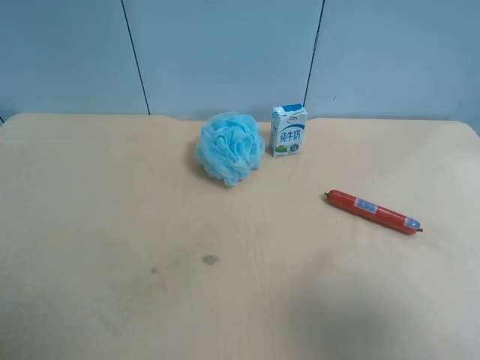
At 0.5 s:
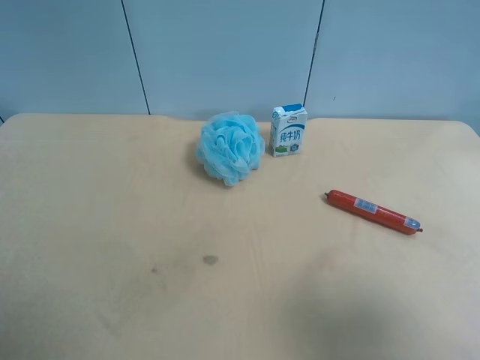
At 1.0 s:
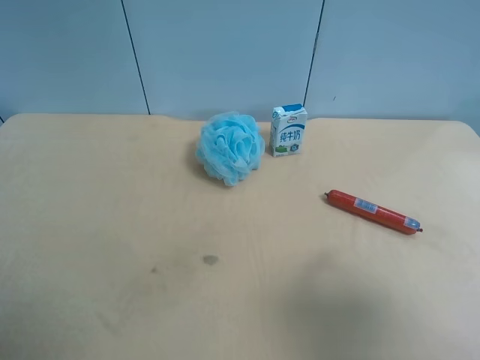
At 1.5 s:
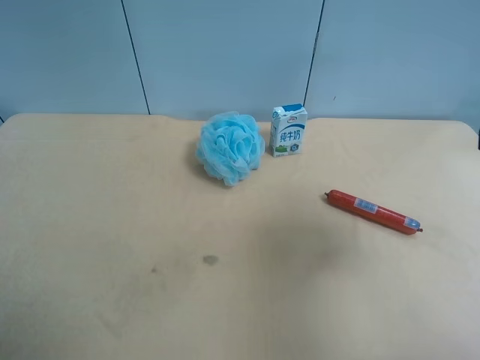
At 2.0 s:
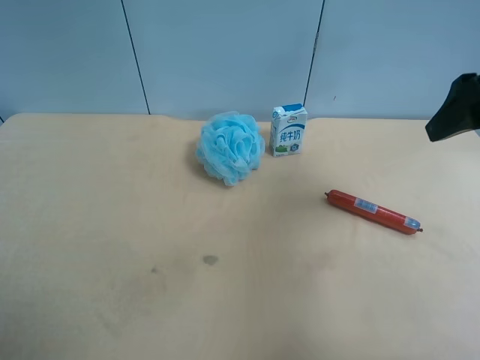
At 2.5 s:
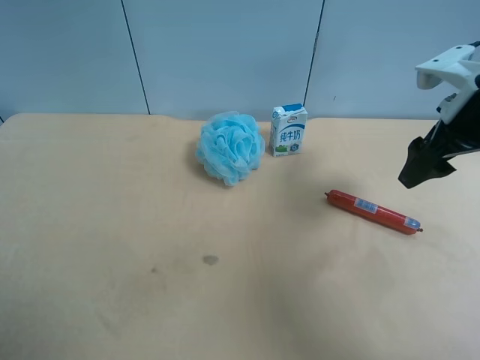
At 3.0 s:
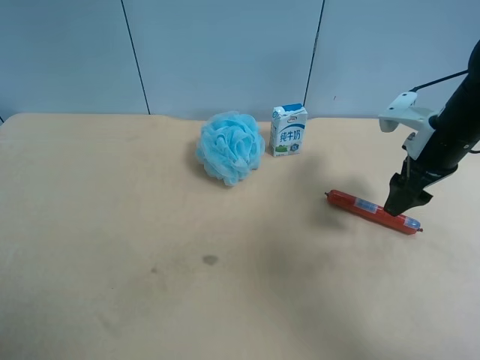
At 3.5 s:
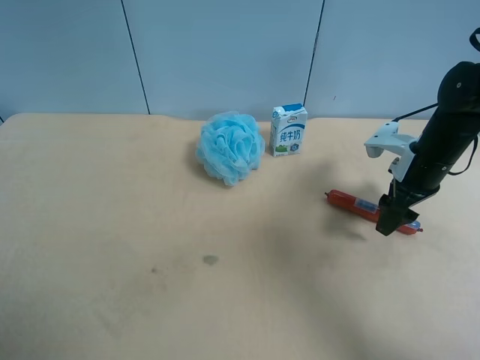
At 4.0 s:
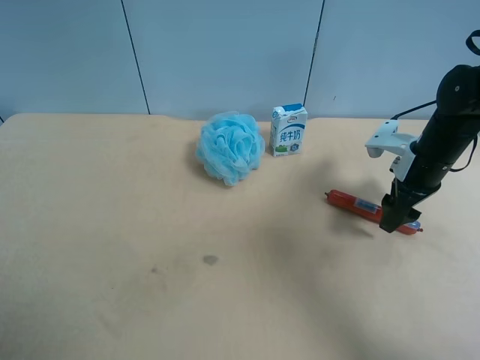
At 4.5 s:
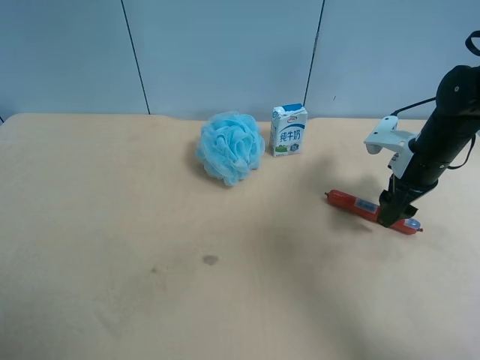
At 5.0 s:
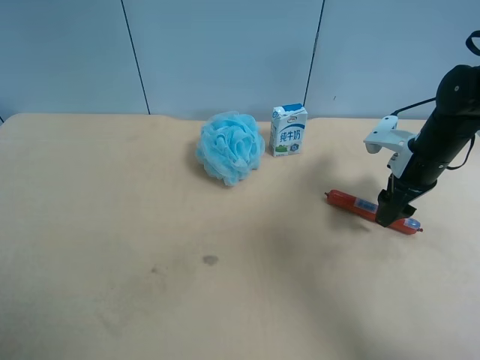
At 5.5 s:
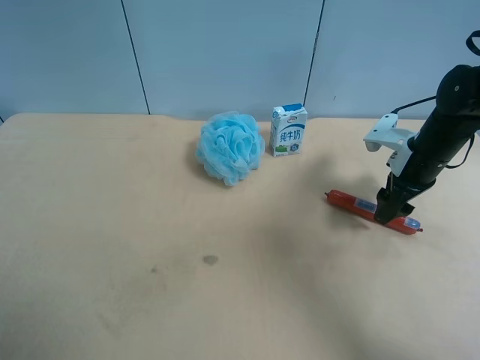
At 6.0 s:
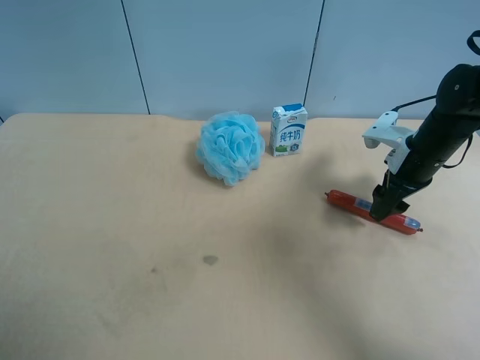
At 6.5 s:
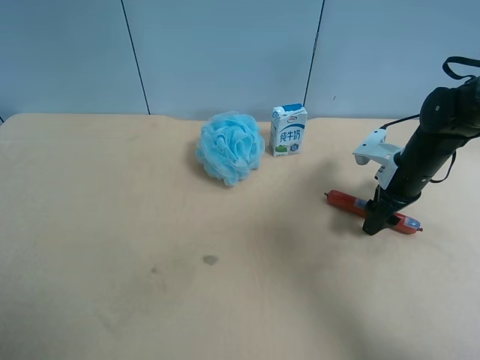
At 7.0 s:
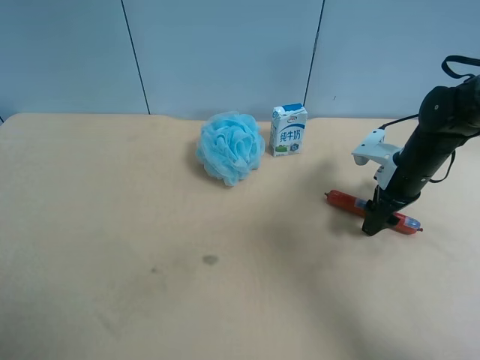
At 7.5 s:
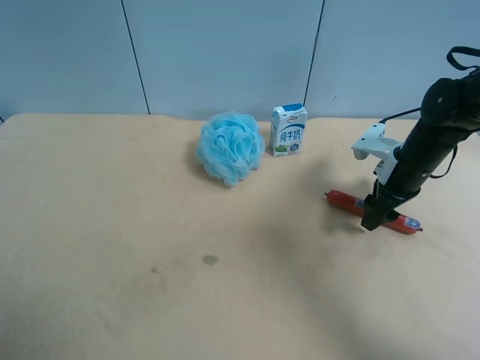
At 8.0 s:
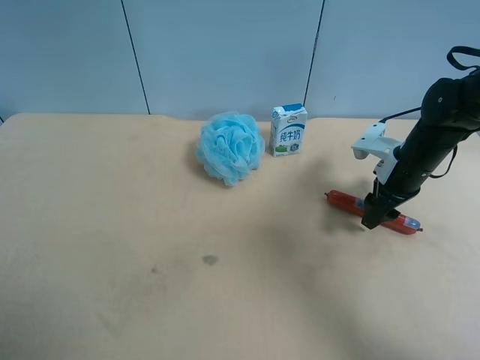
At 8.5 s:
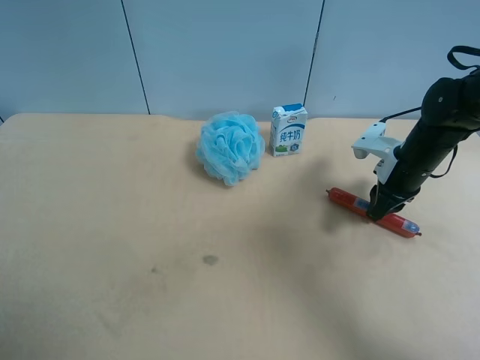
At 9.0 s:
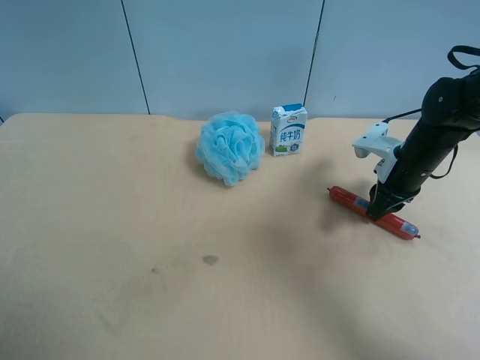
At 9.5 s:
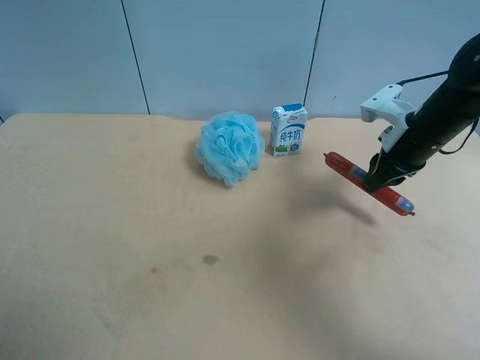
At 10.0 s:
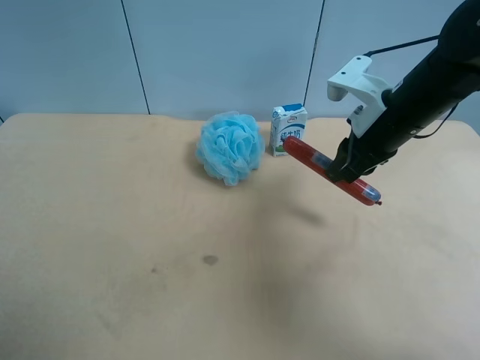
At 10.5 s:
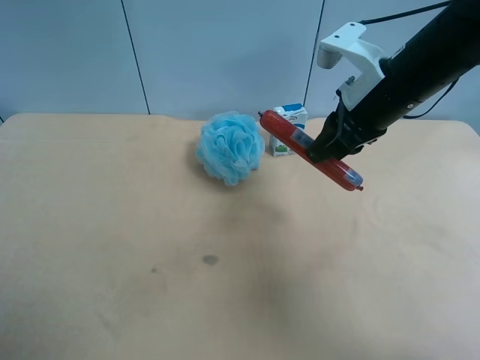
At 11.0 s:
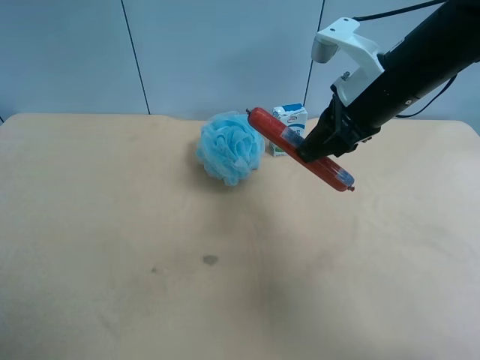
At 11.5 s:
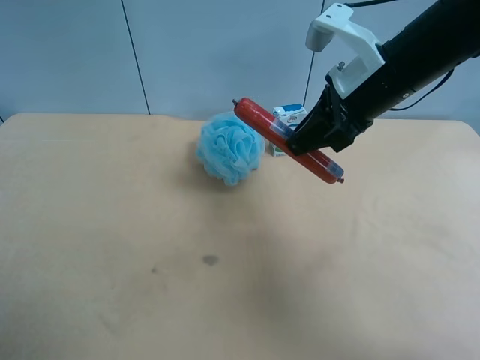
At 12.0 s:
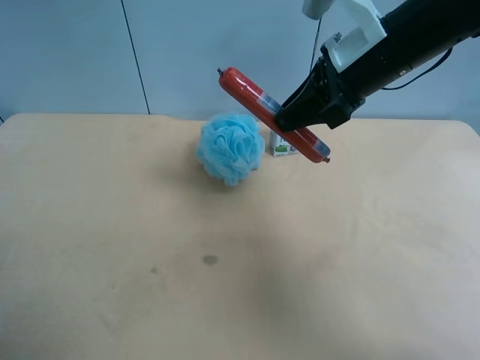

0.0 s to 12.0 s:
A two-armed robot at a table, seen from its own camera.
Task of the whole recording: use the right gripper to pick up the item and transfer it from the right gripper to the left gripper.
0.0 to 2.0 s: The right gripper travels forward by approximately 25 cm.
2.0 to 4.0 s: The right gripper moves downward and forward, some 20 cm.
4.0 to 8.0 s: There are only small adjustments of the grippers.
8.0 to 10.0 s: The right gripper is displaced upward and to the left by about 15 cm, and closes.
10.0 to 12.0 s: The left gripper heads forward, covering about 5 cm. The right gripper travels upward by about 5 cm.

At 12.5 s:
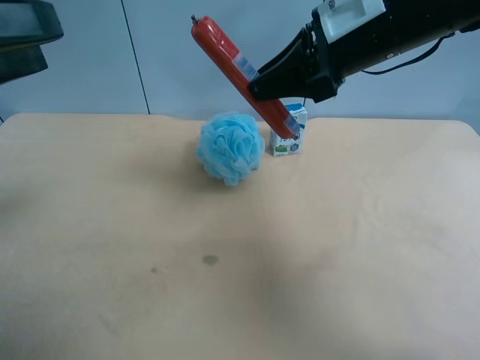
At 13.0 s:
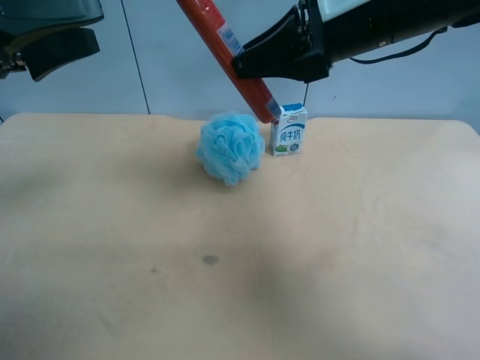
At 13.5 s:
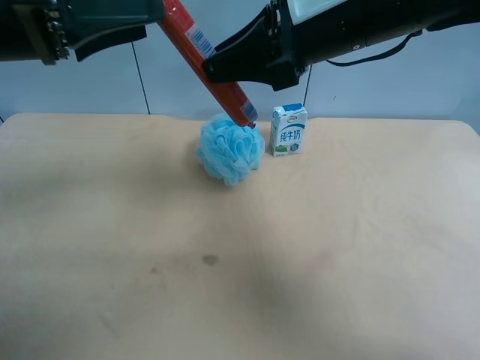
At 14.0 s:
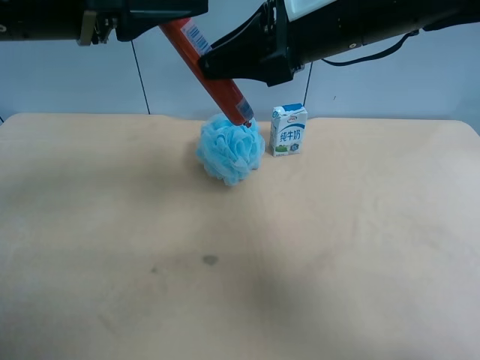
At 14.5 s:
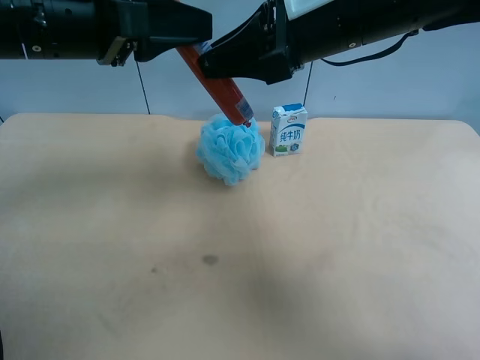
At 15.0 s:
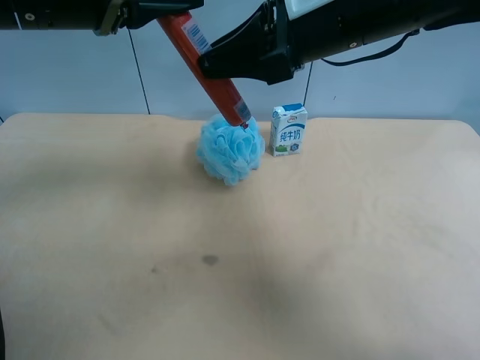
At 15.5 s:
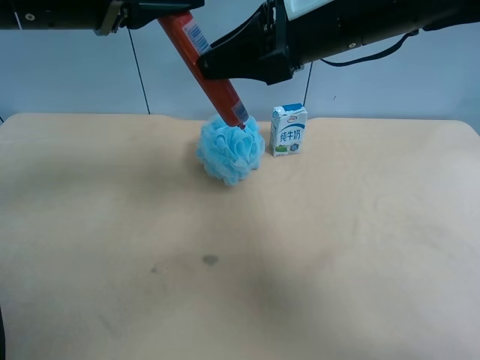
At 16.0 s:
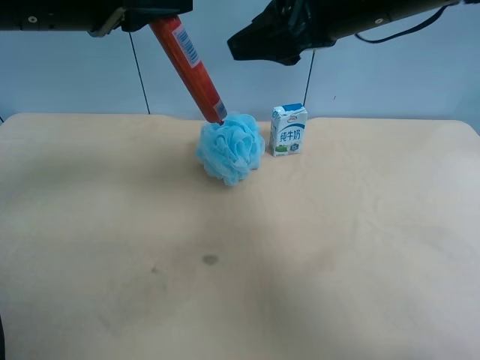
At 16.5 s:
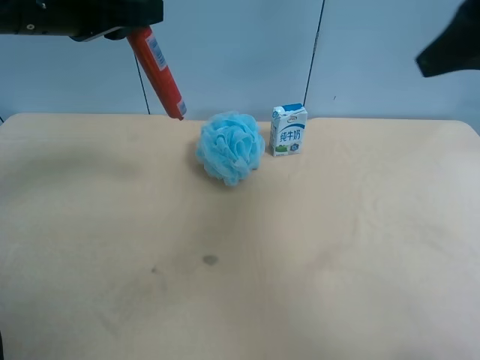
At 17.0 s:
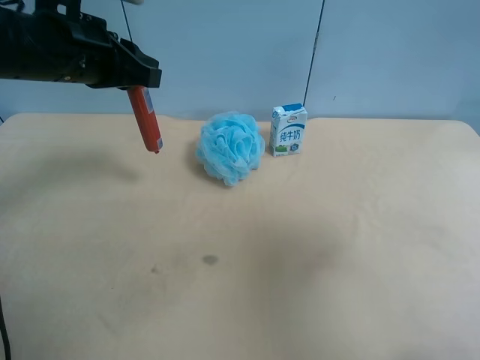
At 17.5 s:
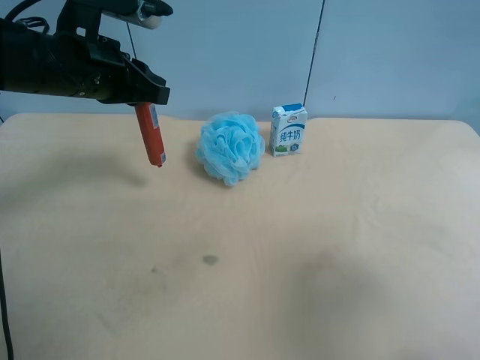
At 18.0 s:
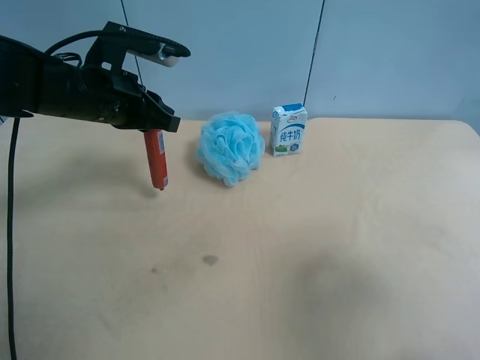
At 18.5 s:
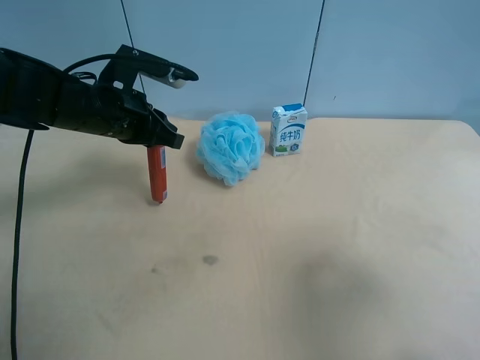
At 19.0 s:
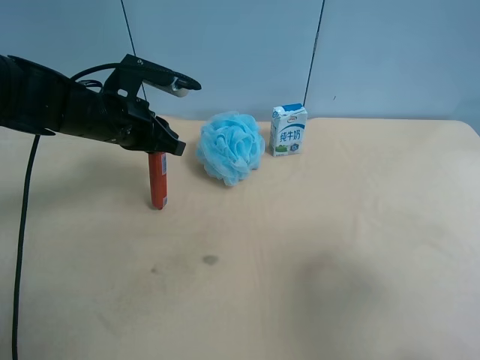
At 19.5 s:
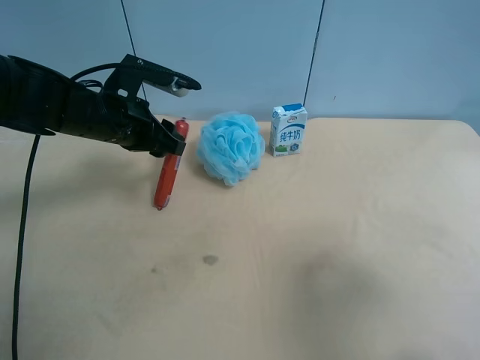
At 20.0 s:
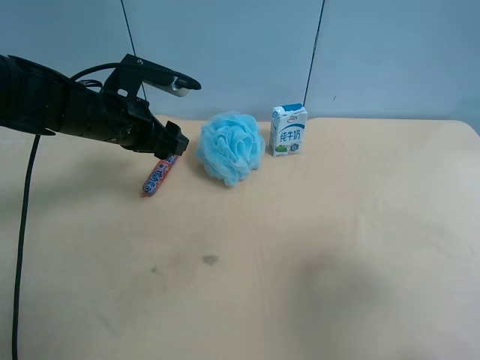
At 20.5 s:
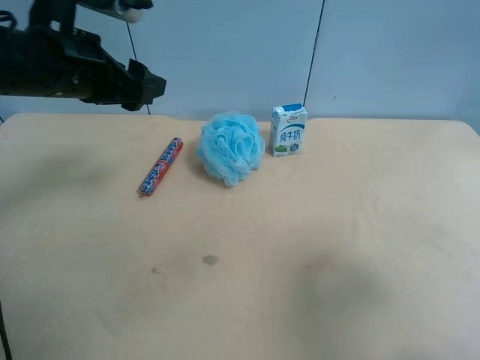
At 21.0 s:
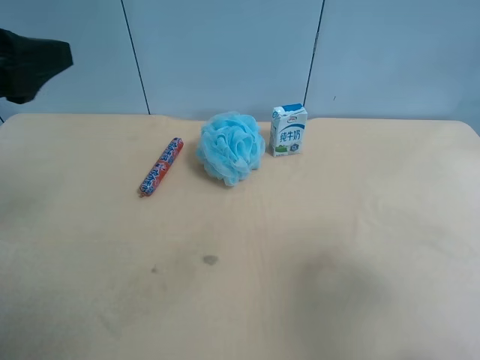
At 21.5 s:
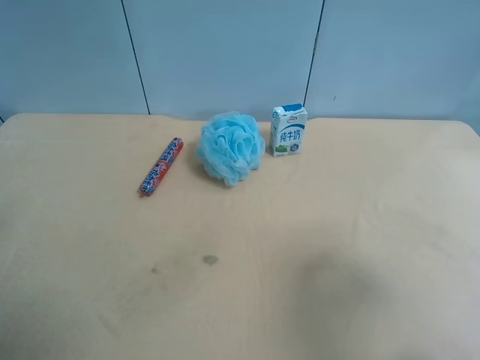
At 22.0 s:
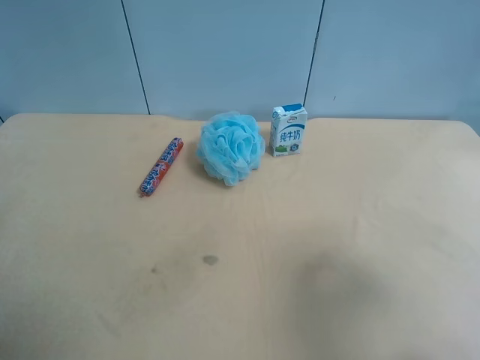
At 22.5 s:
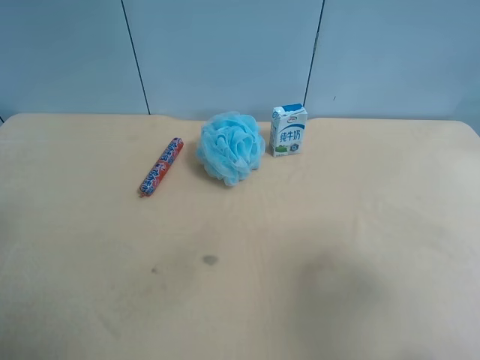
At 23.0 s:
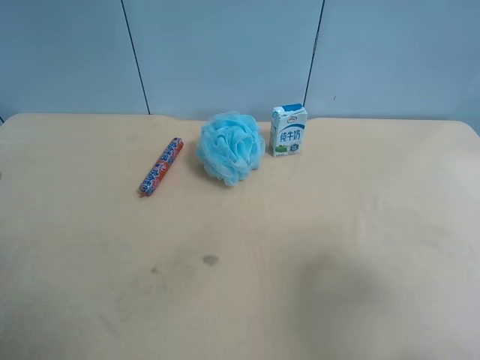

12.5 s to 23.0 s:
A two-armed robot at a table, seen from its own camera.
Task of the whole recording: use the right gripper to pick up the item and transfer it from the right gripper to the left gripper.
12.5 to 14.5 s: The left gripper moves to the right and forward, about 10 cm.
14.5 to 16.5 s: The right gripper moves to the right, backward and upward, about 20 cm, and opens. Meanwhile the left gripper closes.
16.5 to 19.0 s: The right gripper is displaced backward, downward and to the right by some 15 cm, while the left gripper heads downward, covering about 15 cm.
19.0 to 21.0 s: The left gripper shifts about 20 cm backward, upward and to the left, and opens up.
21.0 to 23.0 s: The left gripper travels backward by approximately 10 cm.

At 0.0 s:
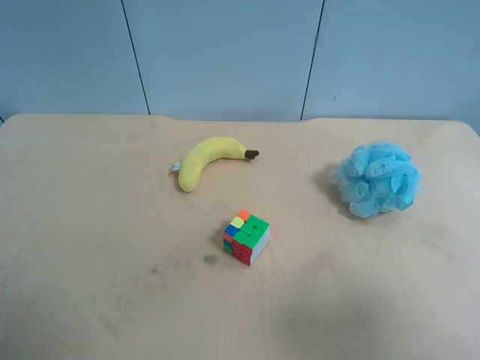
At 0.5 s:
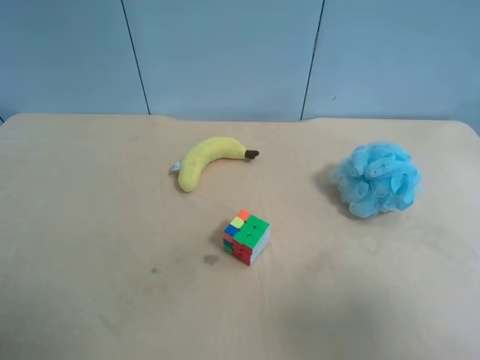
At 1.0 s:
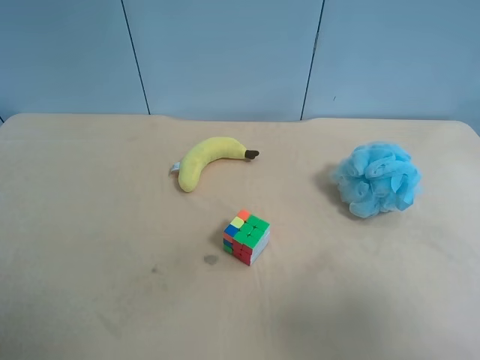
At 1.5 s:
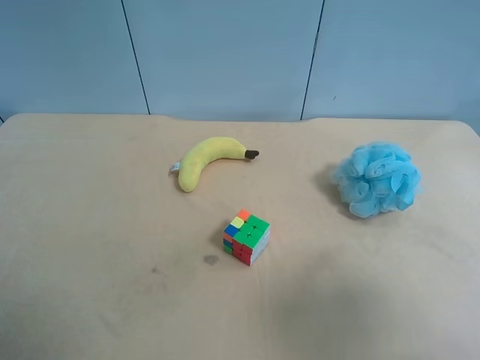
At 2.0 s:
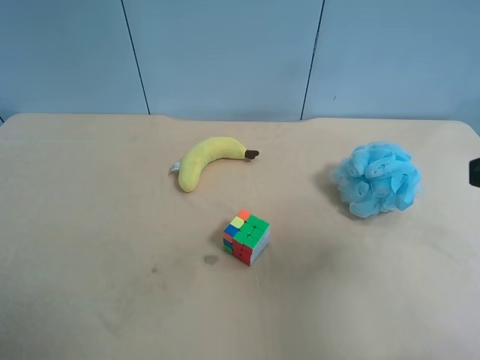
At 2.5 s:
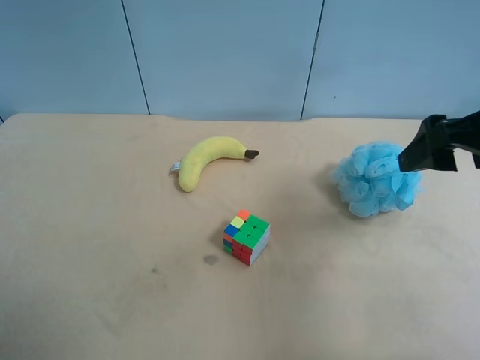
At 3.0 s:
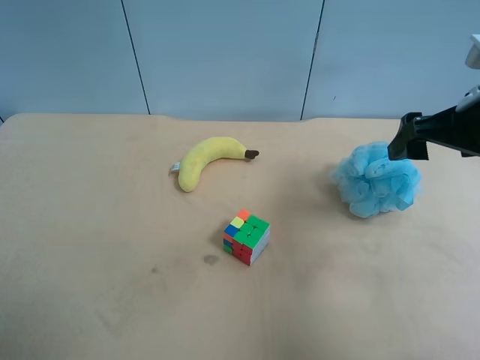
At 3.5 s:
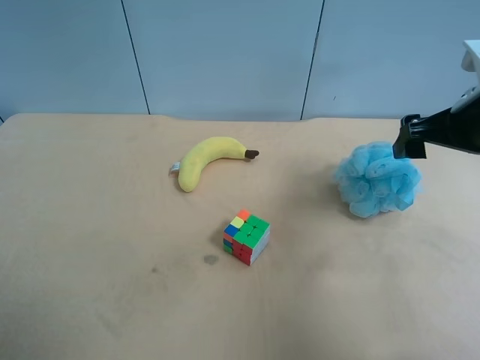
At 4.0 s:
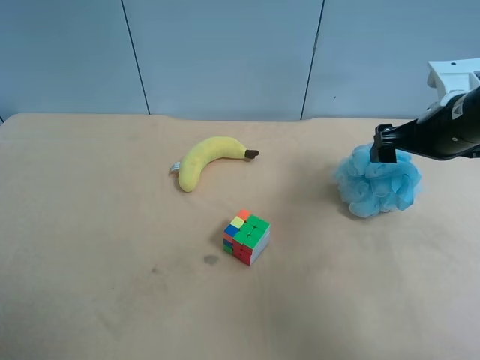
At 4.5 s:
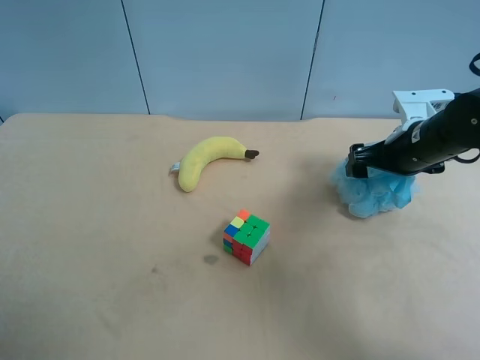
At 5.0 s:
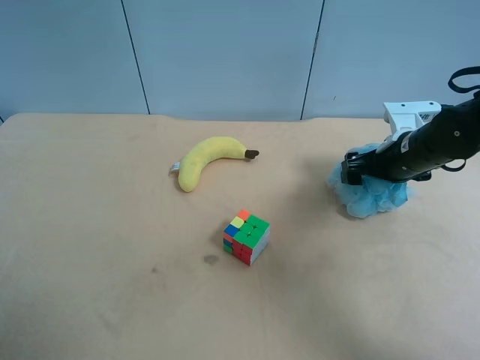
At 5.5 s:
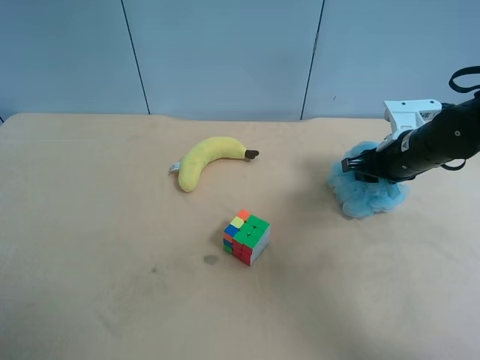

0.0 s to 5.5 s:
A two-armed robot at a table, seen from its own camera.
Task of the whole recording: use the right gripper to pick up the item and transfer it from the right gripper to the left gripper.
0.0 to 2.0 s: The right gripper heads forward, covering some 10 cm.
2.0 to 3.5 s: The right gripper travels forward and downward by approximately 15 cm.
3.5 to 5.5 s: The right gripper shifts roughly 15 cm downward and forward, and closes up.
